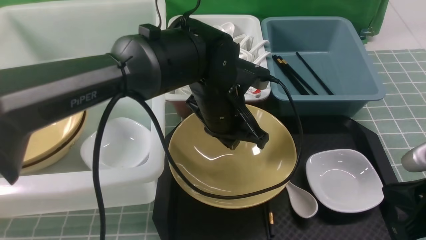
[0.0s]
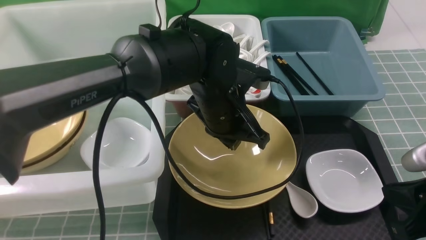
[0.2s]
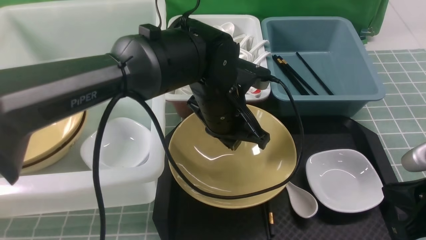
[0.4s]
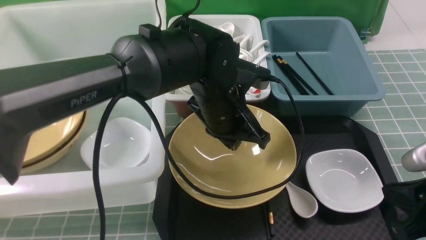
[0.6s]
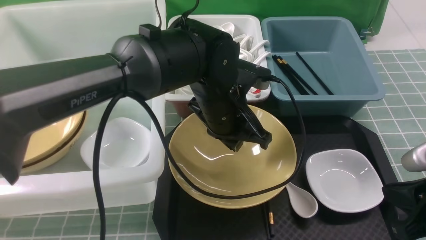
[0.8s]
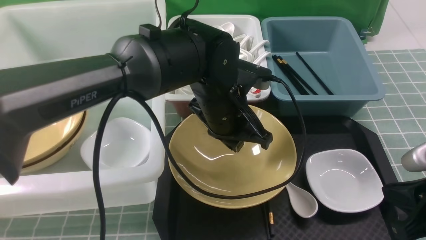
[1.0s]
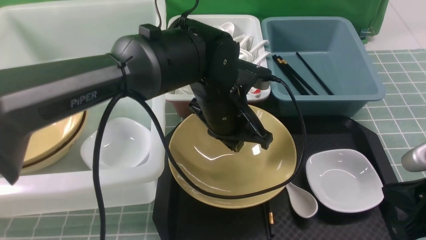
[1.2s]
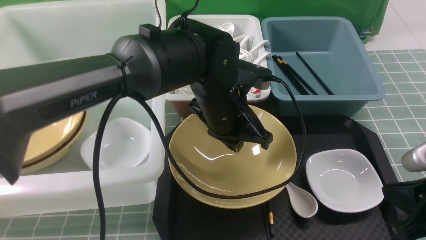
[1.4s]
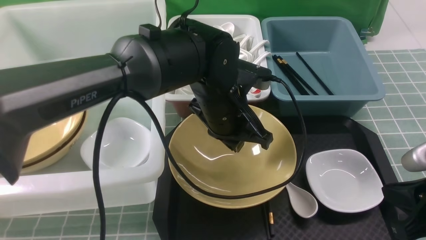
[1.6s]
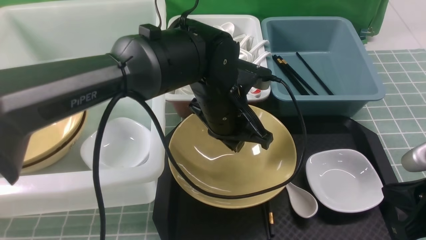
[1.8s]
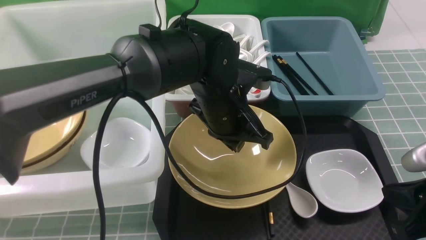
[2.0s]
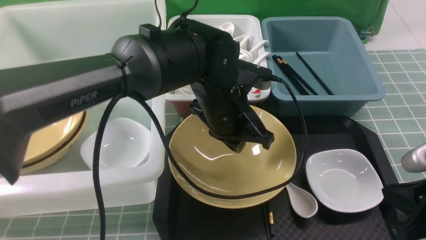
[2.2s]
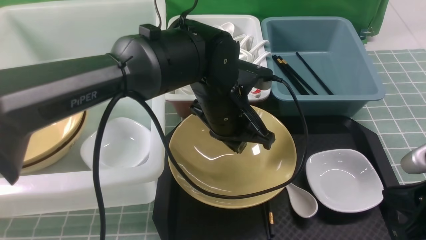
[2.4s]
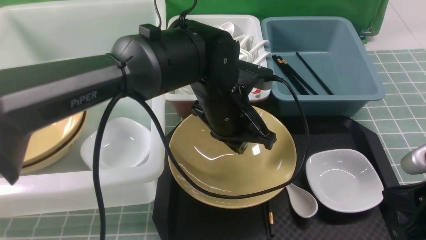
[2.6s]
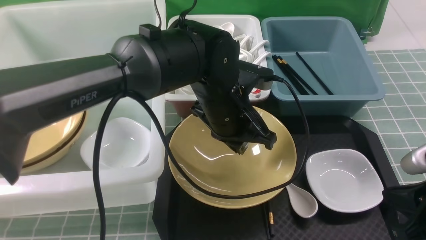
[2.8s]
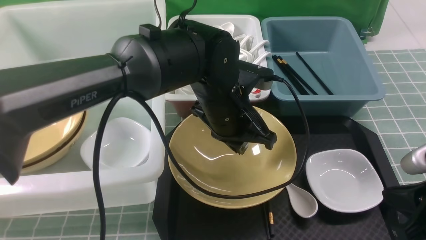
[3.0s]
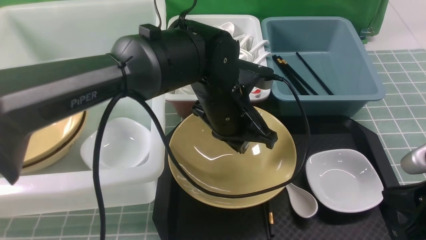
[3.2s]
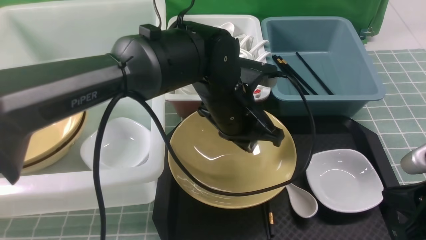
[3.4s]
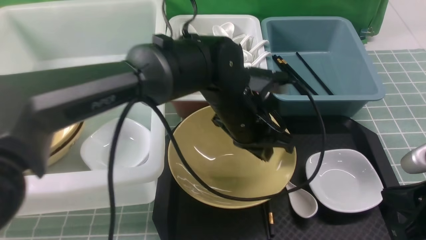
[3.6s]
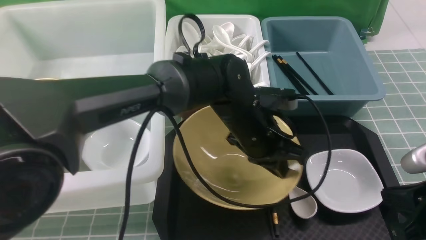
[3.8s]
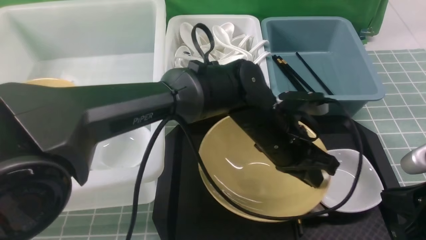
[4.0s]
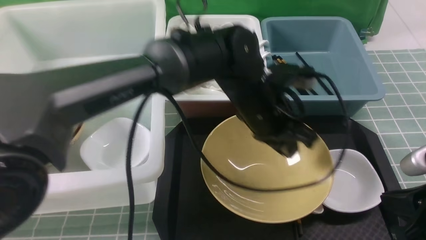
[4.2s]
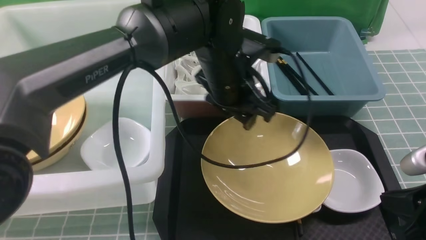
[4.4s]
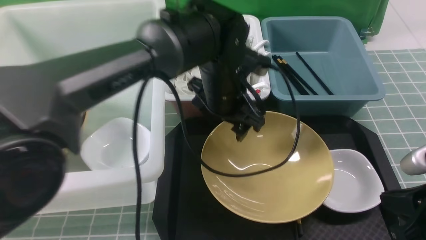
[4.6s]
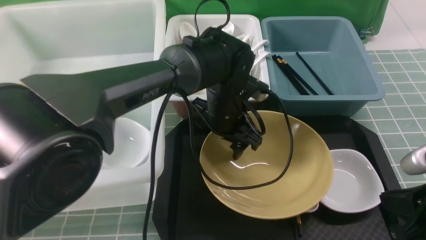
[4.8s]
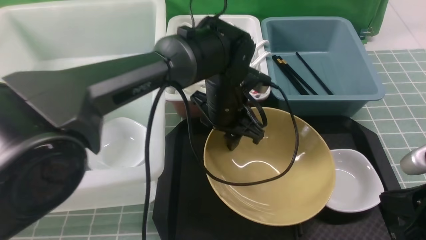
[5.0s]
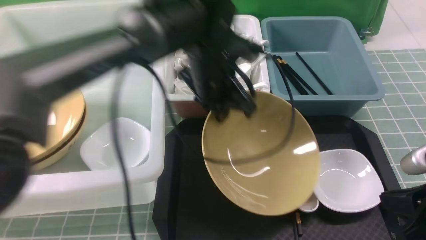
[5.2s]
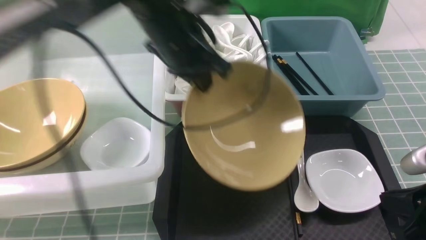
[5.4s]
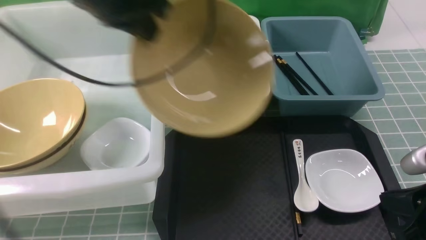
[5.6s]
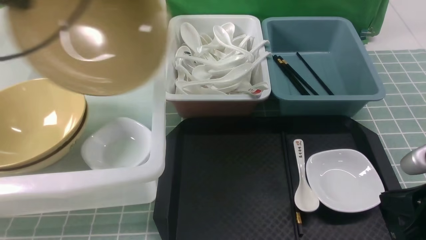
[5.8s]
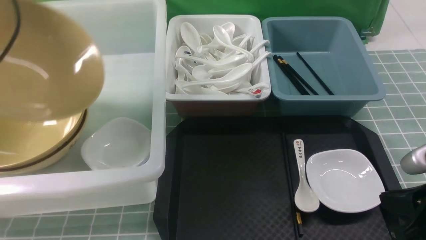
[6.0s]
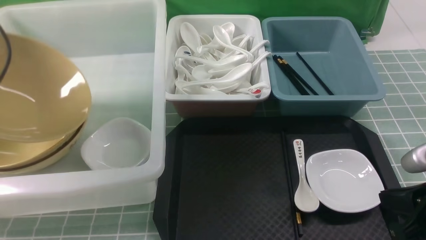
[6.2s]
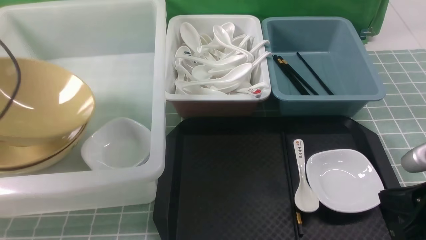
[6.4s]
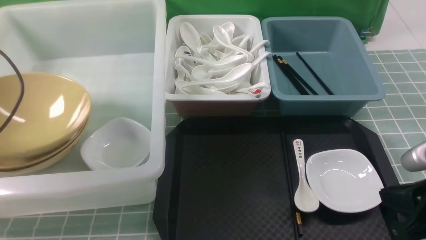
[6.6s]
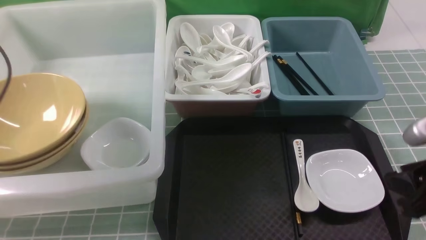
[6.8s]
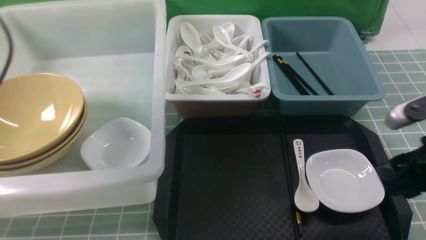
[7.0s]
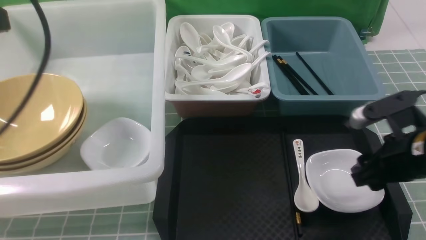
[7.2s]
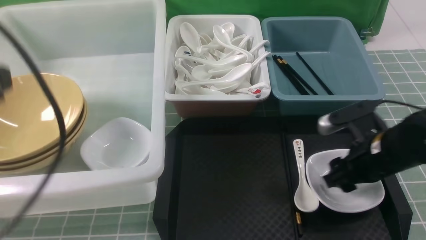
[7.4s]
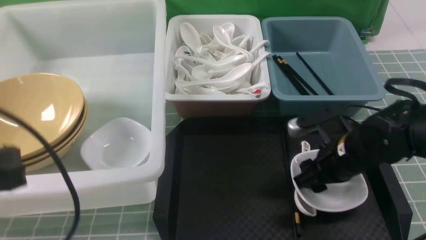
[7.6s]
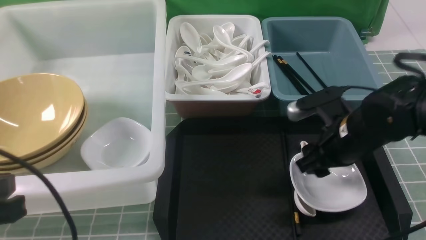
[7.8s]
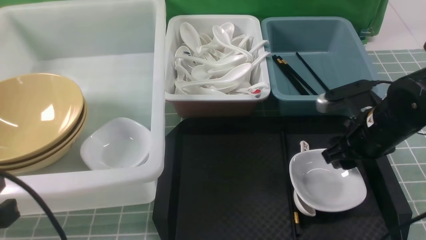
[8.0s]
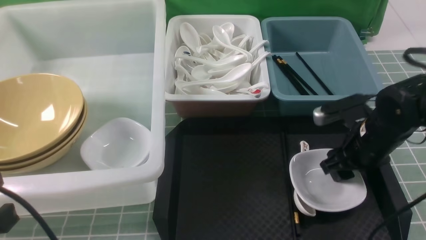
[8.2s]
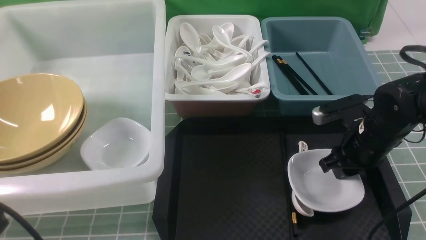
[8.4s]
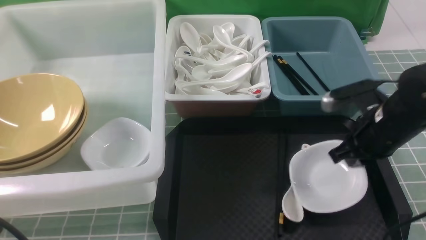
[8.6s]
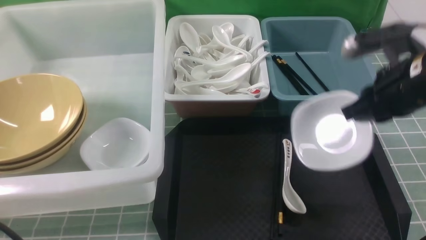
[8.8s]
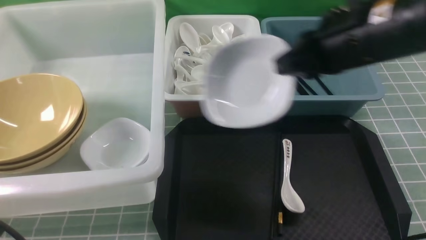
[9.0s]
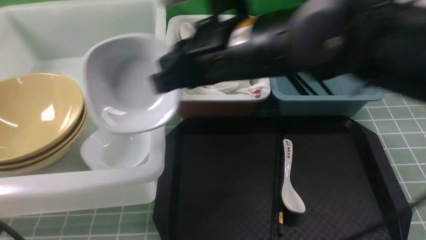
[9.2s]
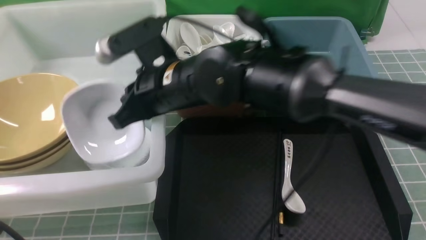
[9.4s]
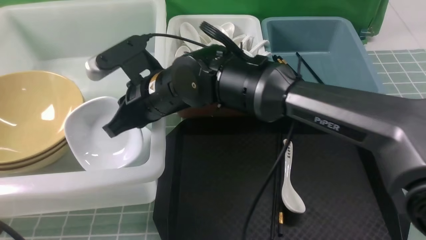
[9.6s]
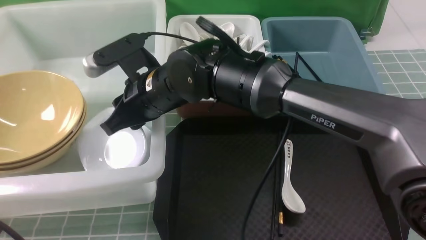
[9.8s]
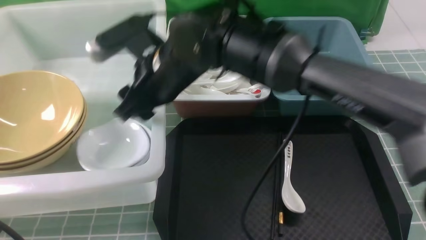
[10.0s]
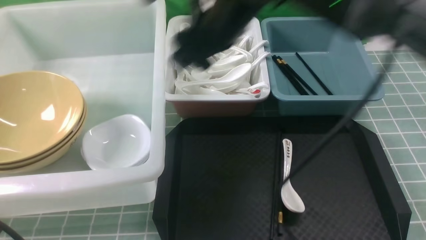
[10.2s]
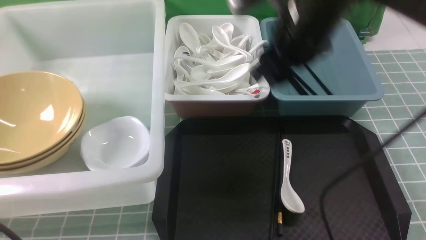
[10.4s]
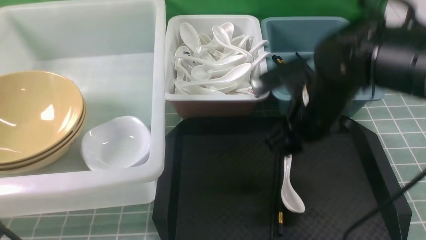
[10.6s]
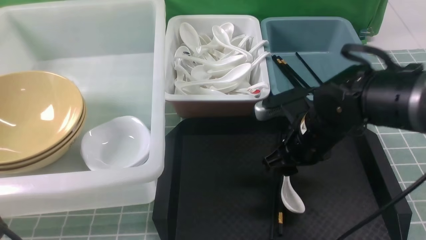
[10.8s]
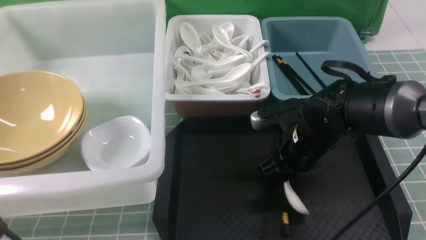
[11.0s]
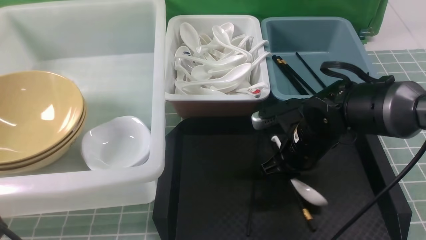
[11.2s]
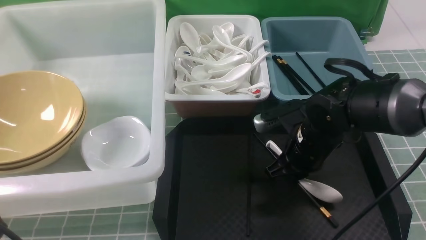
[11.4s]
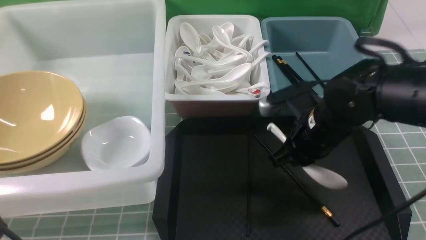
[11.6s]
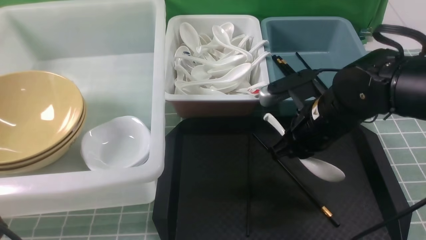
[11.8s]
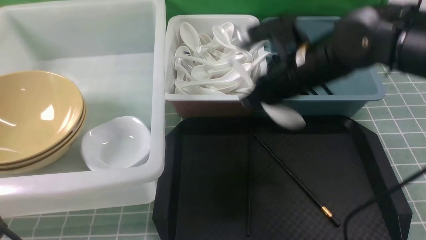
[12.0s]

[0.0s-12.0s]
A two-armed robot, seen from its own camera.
Task of the whole recording: on blue table put chopsticks spoon bowls plates into blue grey white boxes.
Step, 0.0s to 5.2s: use the left arm to grab the yellow noodle bowl on the left.
Step, 5.4s to 6.8s: use the left arm to put the noodle bowl into the large storage box on the left.
Step, 7.0s to 8.6s: use the right arm to grab the plate.
Step, 8.8s to 9.8s: use the right arm to put the plate into the large storage box on the left.
Step, 10.2s to 11.4s: use the right arm to grab the soup spoon in the middle.
0.0s to 1.6s: Both grippers stay put.
1.6s to 3.0s: Both grippers stay put.
3.0s to 4.4s: The left gripper opens its fingers.
4.4s to 6.0s: The left gripper travels to the left by about 35 cm, and closes its fingers.
6.0s to 7.6s: The left gripper goes roughly 20 cm backward and to the right, and opens, then closes once more. Meanwhile the right gripper travels forward and to the left by about 15 cm, and opens up.
7.6s to 9.0s: The right gripper heads upward and to the left, covering approximately 20 cm, and closes its fingers, while the left gripper heads backward and downward, covering roughly 10 cm.
9.0s to 10.4s: The right gripper travels to the left and back again, some 20 cm each way, and opens up.
10.4s to 12.0s: The right gripper moves approximately 15 cm downward and comes back, and closes.

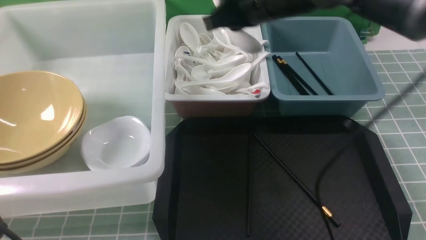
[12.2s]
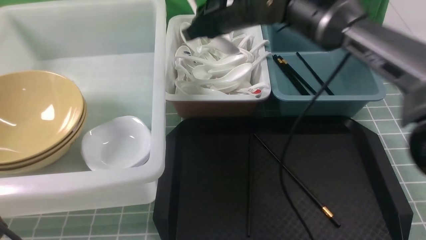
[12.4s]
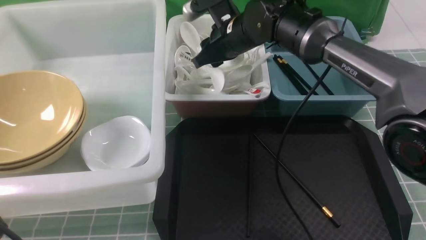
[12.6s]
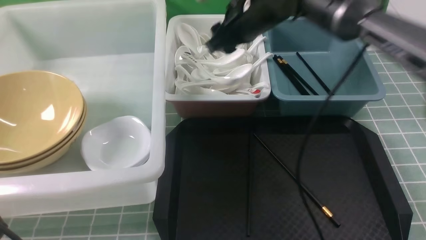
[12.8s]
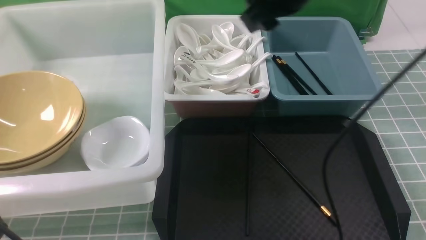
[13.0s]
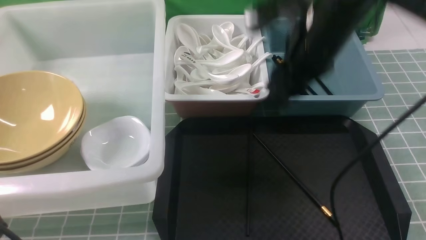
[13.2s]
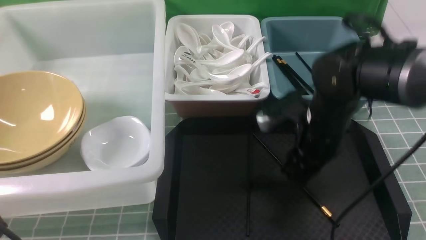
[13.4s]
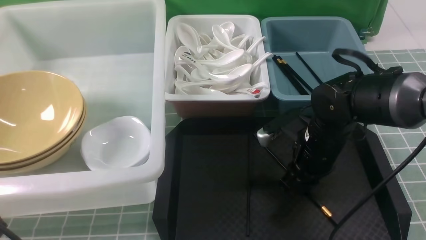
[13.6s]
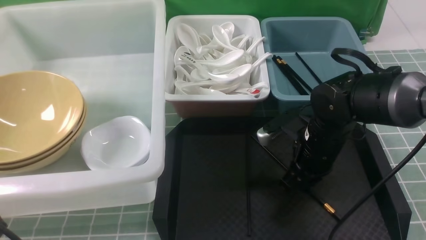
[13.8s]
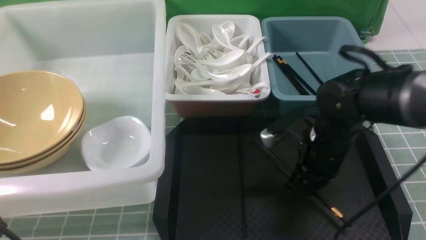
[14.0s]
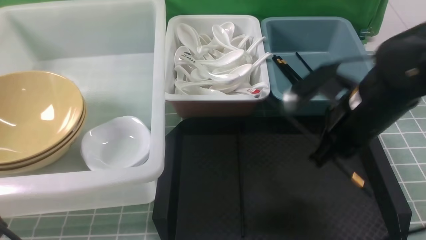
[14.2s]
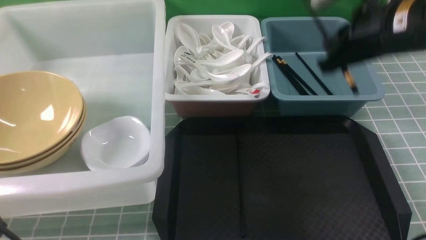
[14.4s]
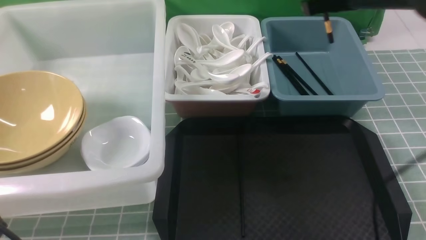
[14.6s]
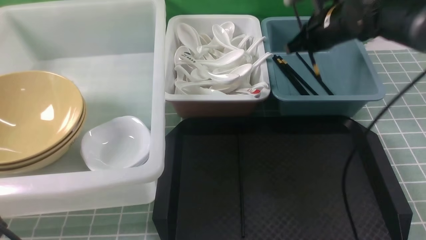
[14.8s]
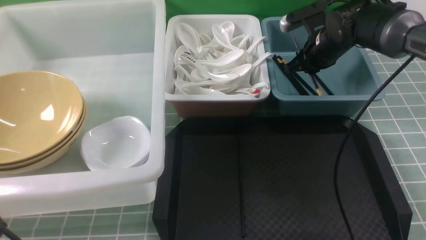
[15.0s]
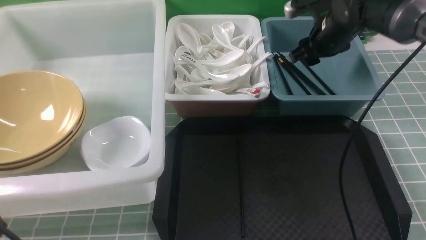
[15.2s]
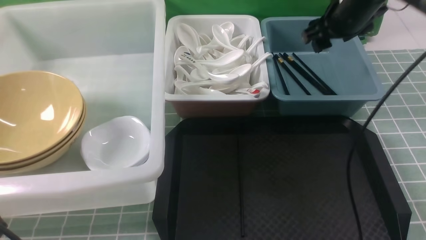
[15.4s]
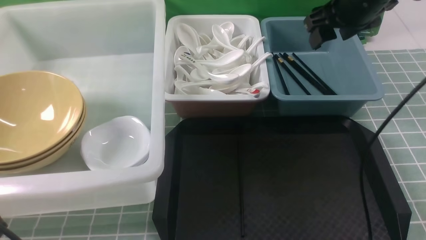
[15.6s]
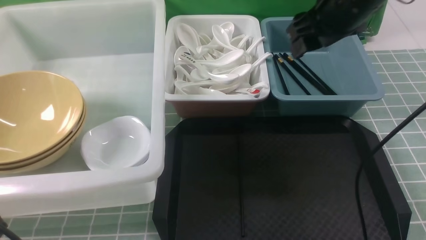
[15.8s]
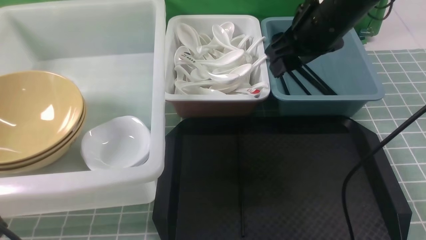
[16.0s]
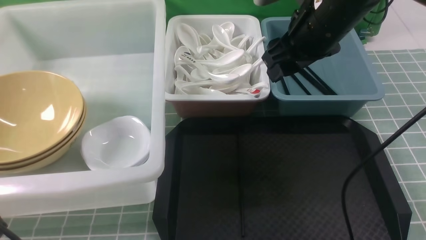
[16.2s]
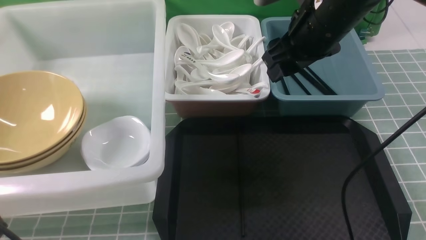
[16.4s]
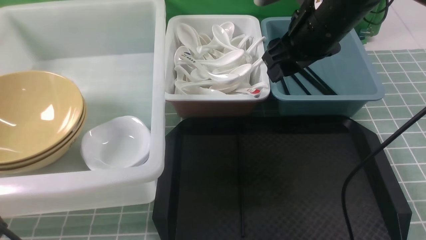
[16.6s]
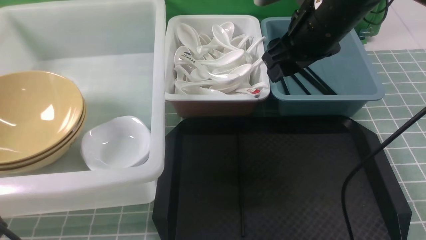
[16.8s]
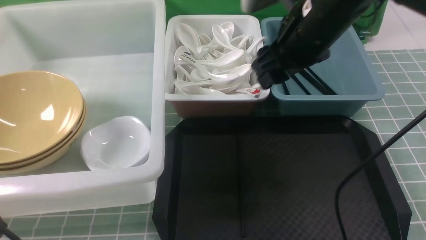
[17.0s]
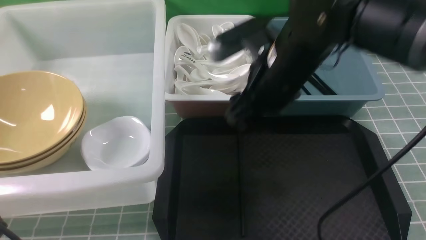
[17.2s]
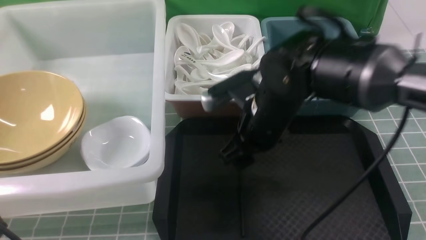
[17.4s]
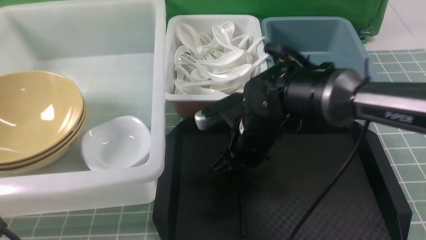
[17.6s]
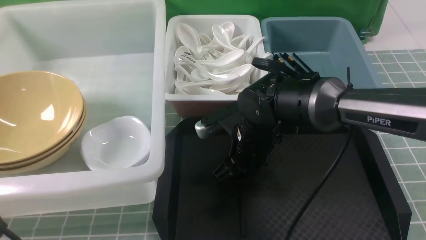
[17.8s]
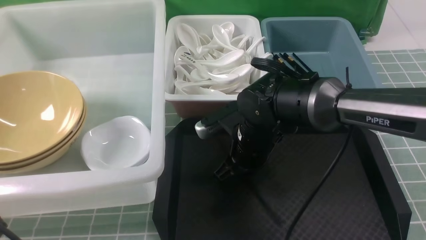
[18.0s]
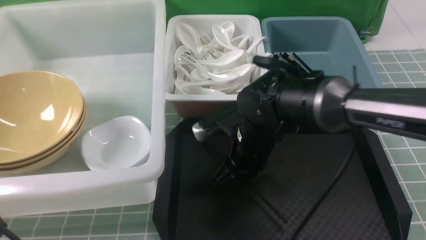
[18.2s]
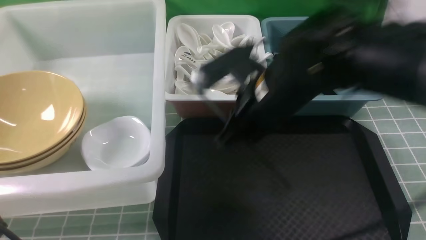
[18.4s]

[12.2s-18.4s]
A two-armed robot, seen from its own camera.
Task of the whole recording: on blue table put chopsticks spoon bowls plates into blue grey white boxes.
Step, 12.8s to 13.8s: use the right arm to grab a chopstick.
Step, 14.2s to 15.0s: use the right arm to put a chopstick into the small storage box on the right.
Step, 15.2s to 18.2s: use the right arm to grab a chopstick.
12.2s to 13.8s: The right gripper swings up and down, approximately 15 cm each way, with 2 reversals, and opens and closes again.
13.8s to 15.4s: The right gripper heads upward and forward, covering roughly 20 cm, and opens up.
15.4s to 16.8s: The right gripper travels backward and to the left by some 10 cm.
16.8s to 18.4s: The right gripper goes about 5 cm backward, travels downward and back again, roughly 20 cm each way, and closes its fingers.
